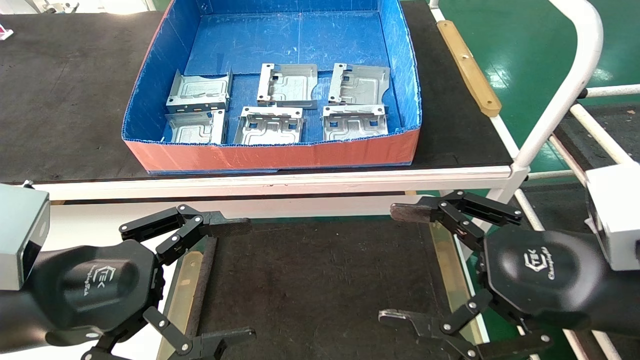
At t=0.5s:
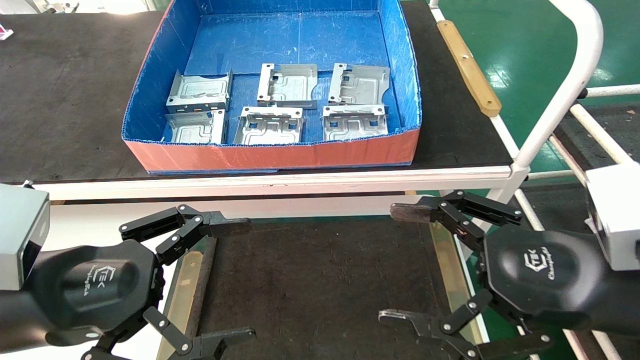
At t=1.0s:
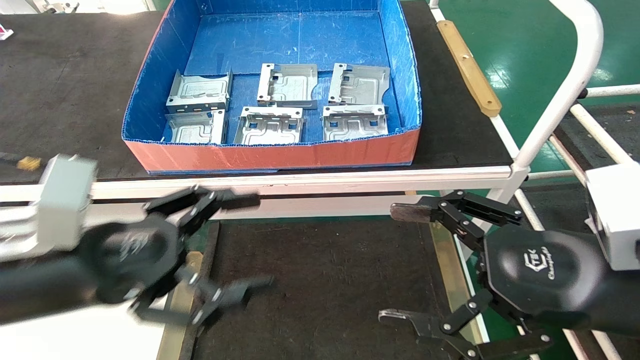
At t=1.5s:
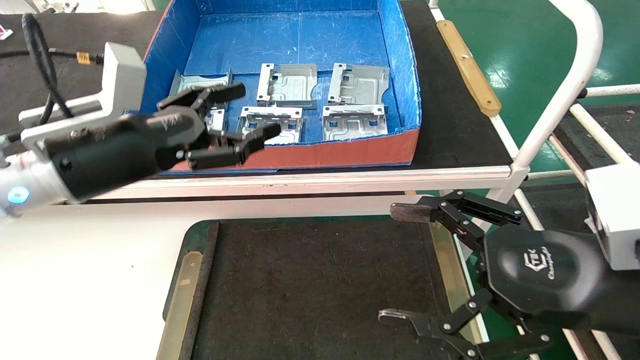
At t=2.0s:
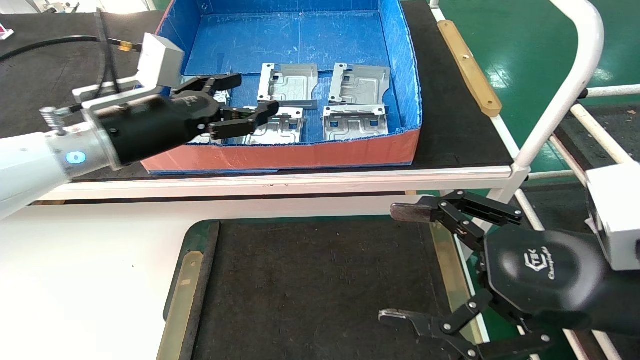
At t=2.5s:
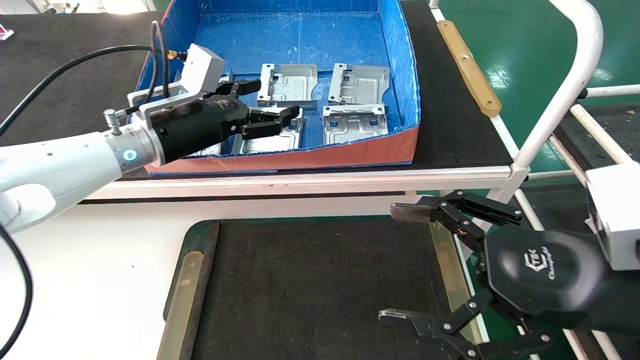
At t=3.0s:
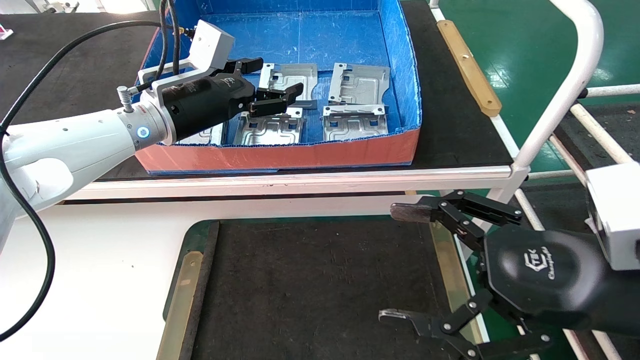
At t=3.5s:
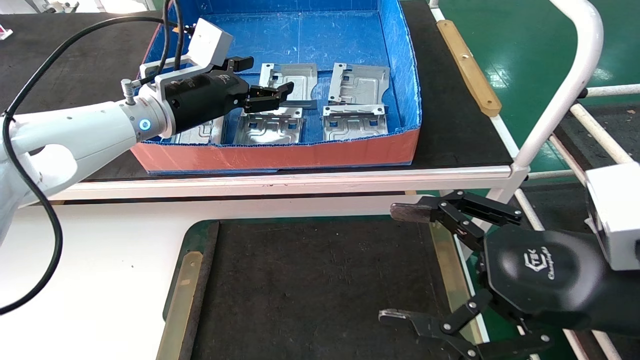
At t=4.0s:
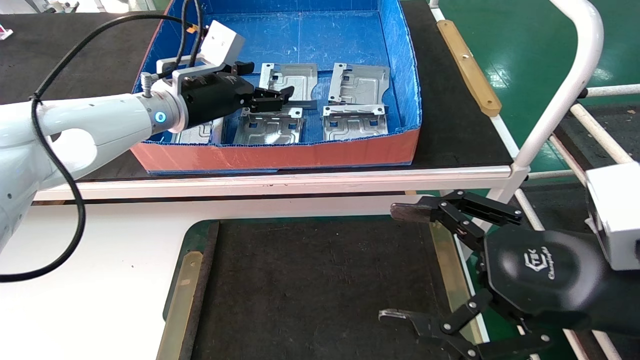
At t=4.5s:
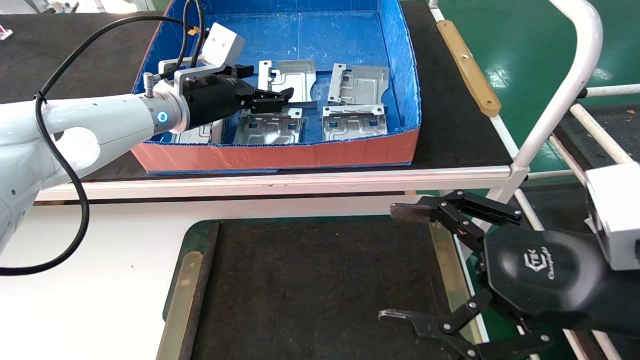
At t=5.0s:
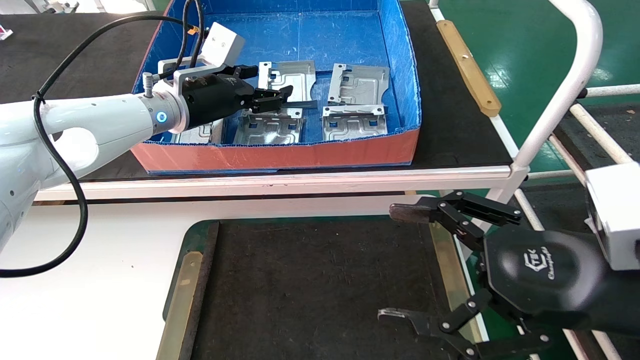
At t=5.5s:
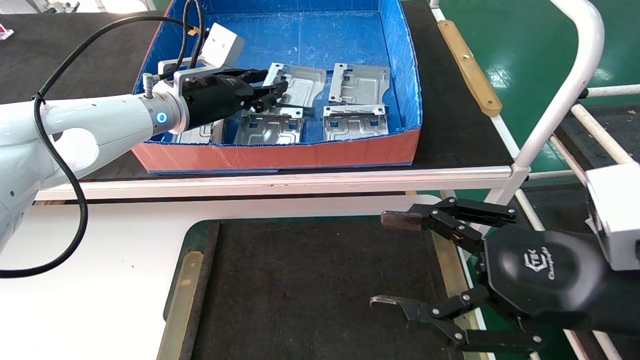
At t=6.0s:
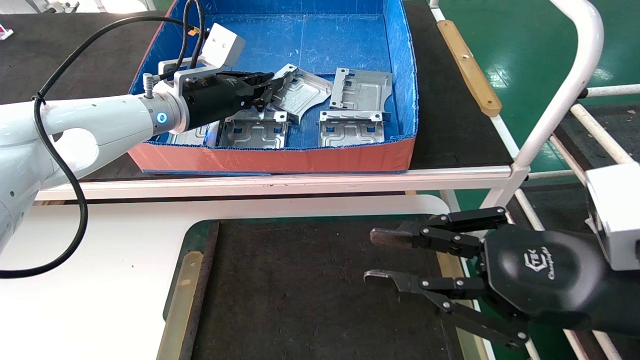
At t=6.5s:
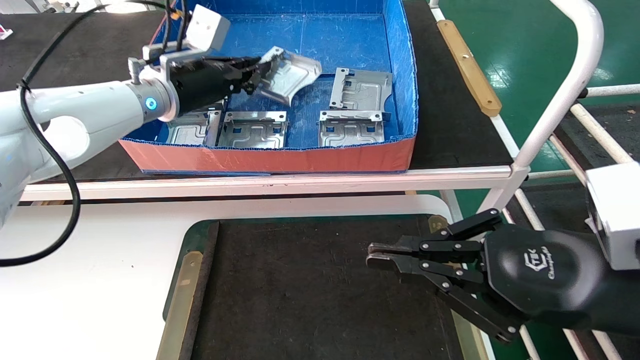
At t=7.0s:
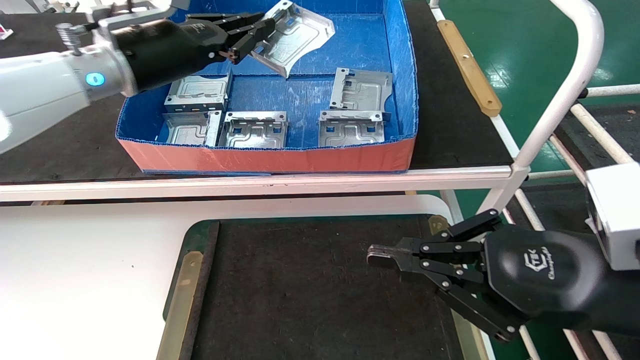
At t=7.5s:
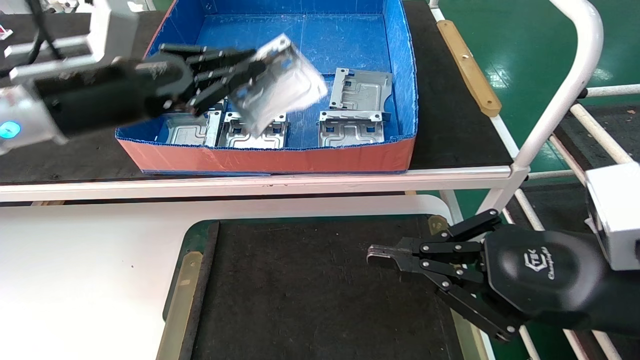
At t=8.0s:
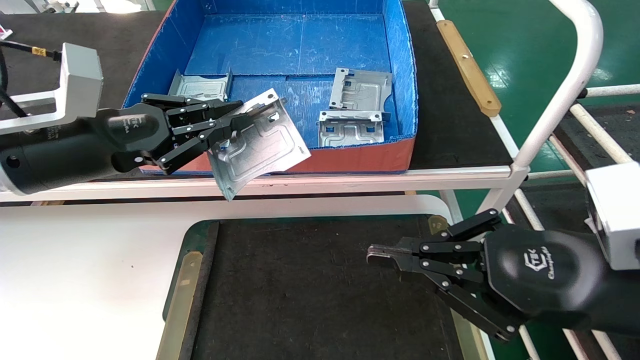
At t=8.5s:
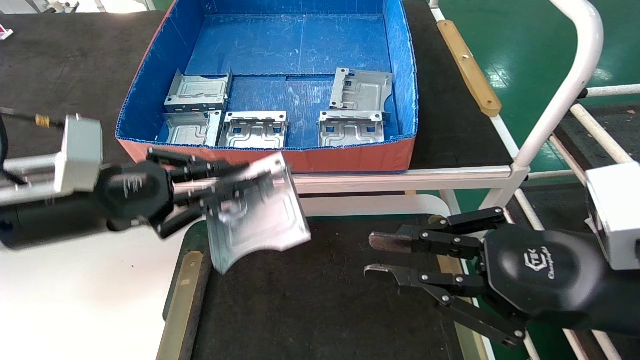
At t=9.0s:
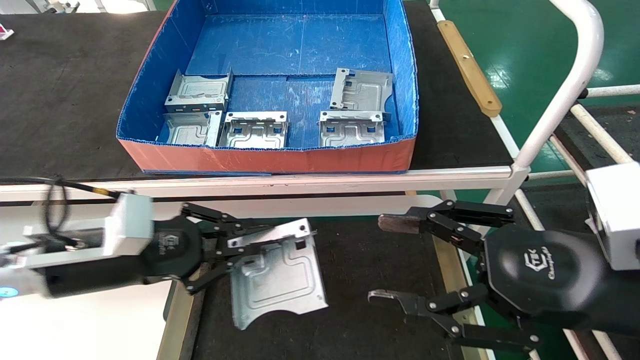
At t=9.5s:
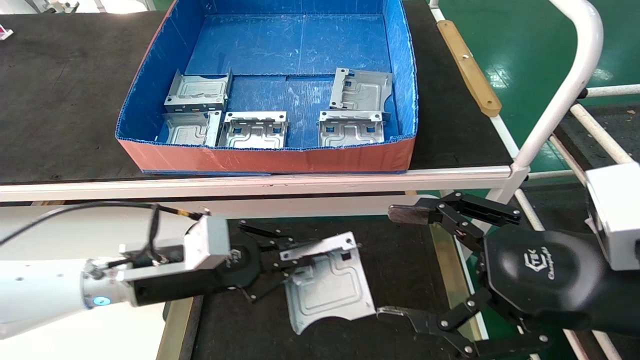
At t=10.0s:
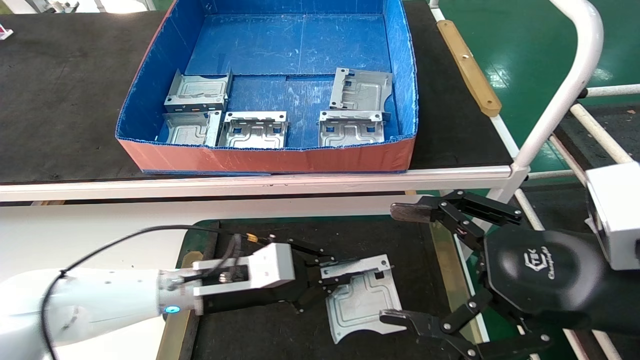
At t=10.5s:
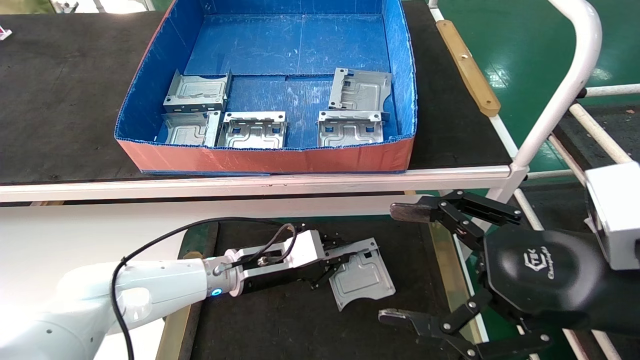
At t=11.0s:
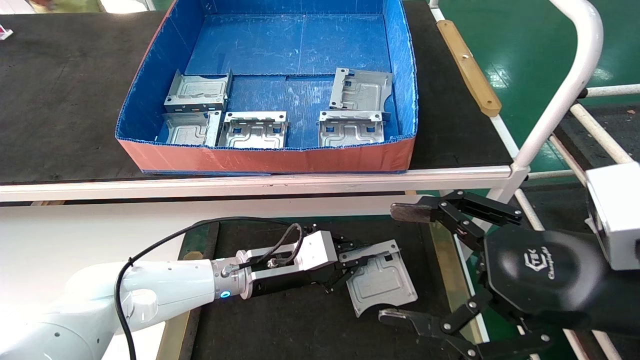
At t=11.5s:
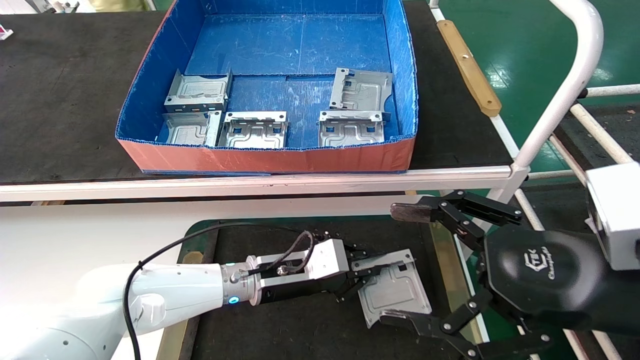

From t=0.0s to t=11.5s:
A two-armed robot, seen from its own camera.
Task of the whole recording: take the accessories out of the box and place them on the table.
Step, from t=1.5s to t=6.0s: Pick up the hard drive bracket from the feeding area.
From t=0.0s to t=2.0s: The left gripper is displaced forward and upward by roughly 20 cm.
From t=2.0s to t=4.0s: The left gripper is displaced forward by roughly 10 cm.
From t=4.0s to t=6.0s: The left gripper closes its fingers. Meanwhile the right gripper closes its fingers.
From t=6.0s to t=7.5s: The right gripper closes, while the left gripper heads backward and to the left, covering some 15 cm.
From t=7.5s to t=9.5s: The left gripper heads downward, covering approximately 20 cm. The right gripper opens its fingers.
From t=9.5s to t=11.5s: The left gripper is displaced to the right, forward and downward by about 15 cm.

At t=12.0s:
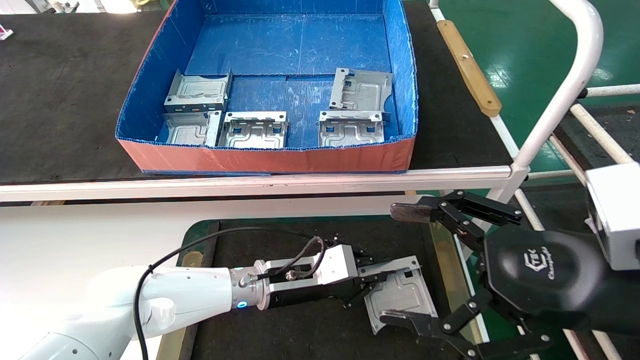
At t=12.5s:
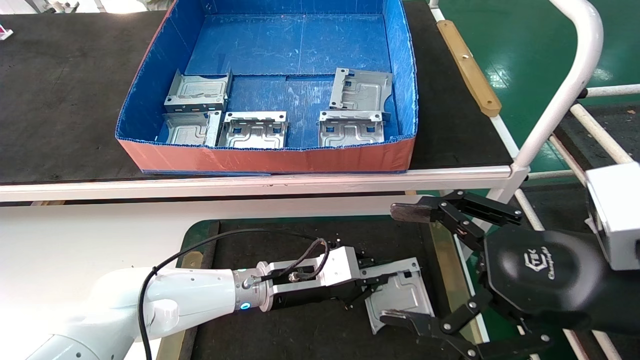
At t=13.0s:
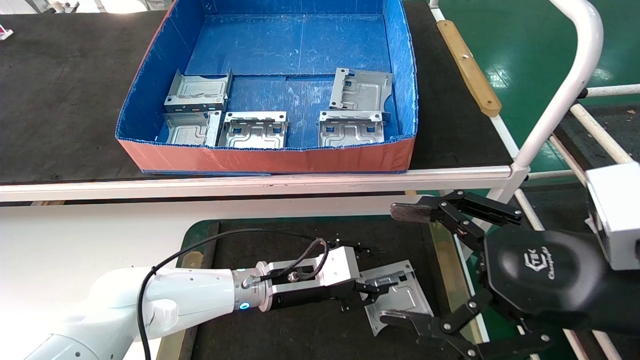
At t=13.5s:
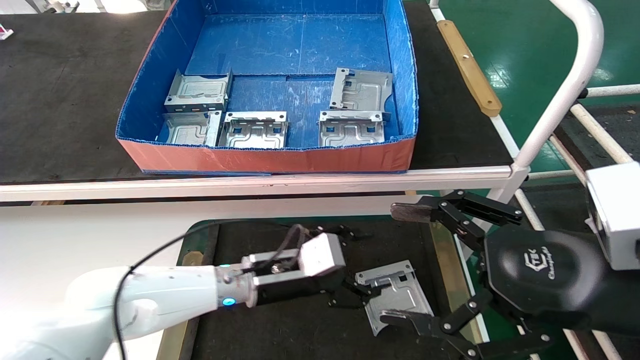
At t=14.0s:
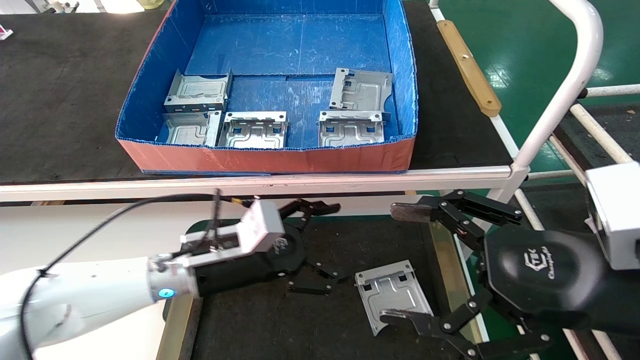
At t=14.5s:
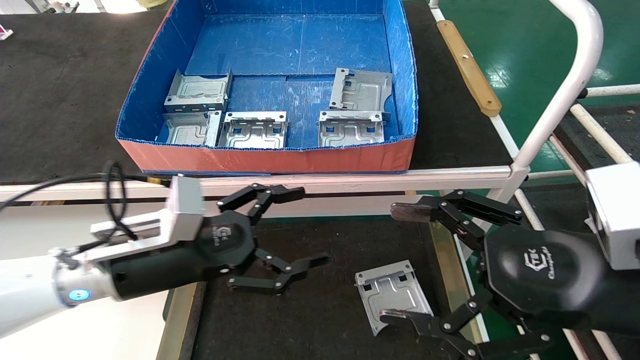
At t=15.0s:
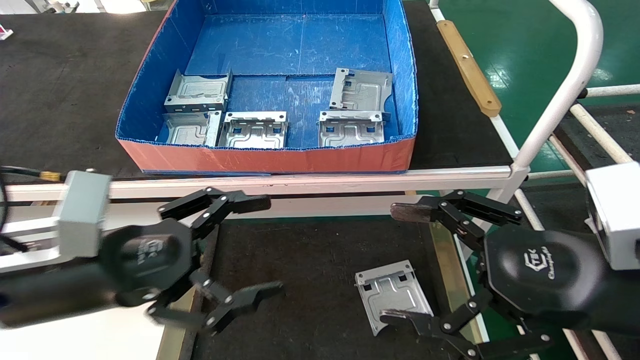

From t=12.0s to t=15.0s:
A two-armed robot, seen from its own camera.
Task of the whole recording: take the accessories out of the box and place them on the table.
From t=12.0s to t=13.5s: The left gripper opens up.
From t=13.5s to t=15.0s: The left gripper travels backward, to the left and upward by roughly 25 cm.
